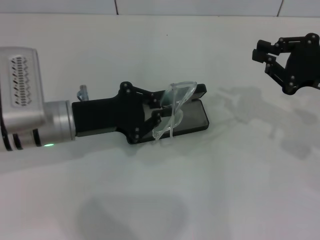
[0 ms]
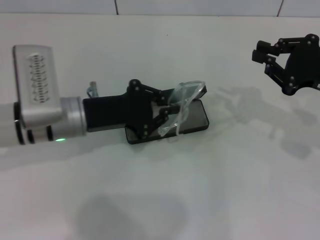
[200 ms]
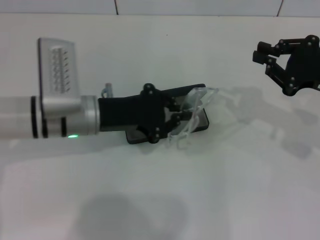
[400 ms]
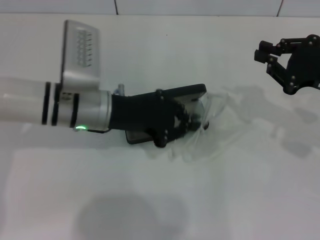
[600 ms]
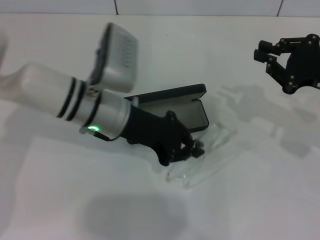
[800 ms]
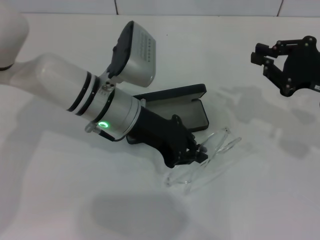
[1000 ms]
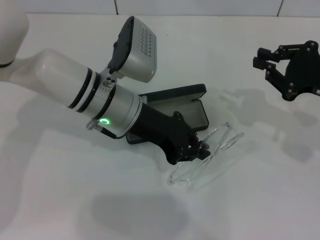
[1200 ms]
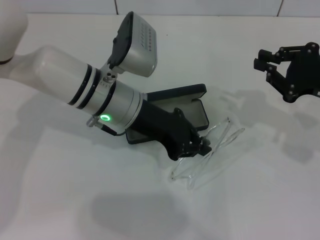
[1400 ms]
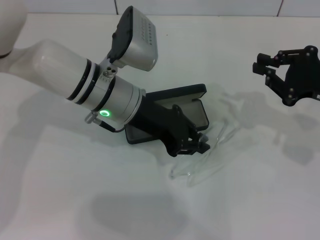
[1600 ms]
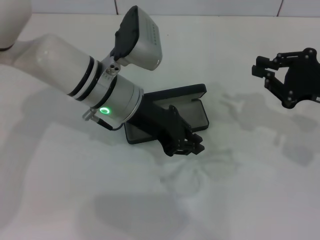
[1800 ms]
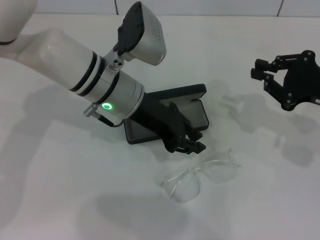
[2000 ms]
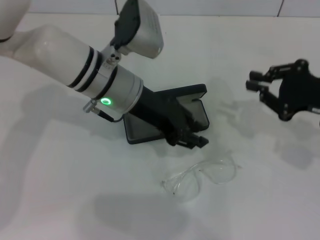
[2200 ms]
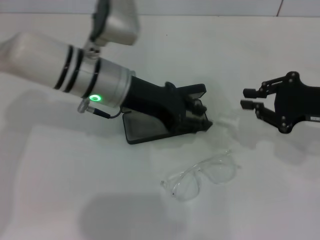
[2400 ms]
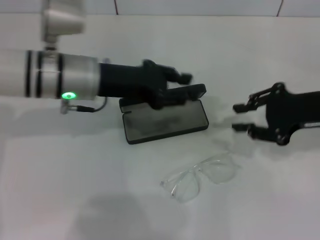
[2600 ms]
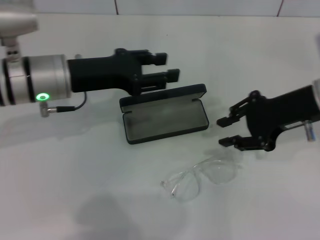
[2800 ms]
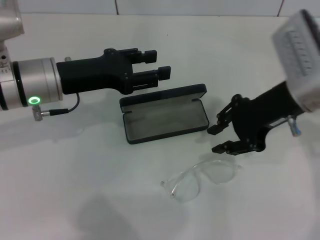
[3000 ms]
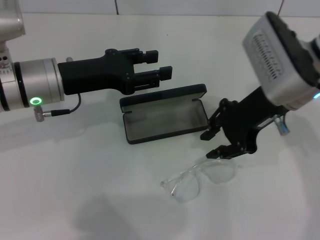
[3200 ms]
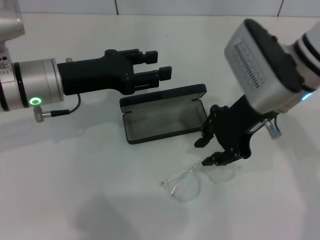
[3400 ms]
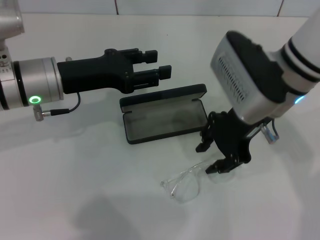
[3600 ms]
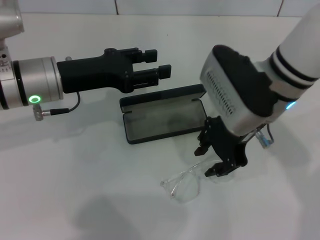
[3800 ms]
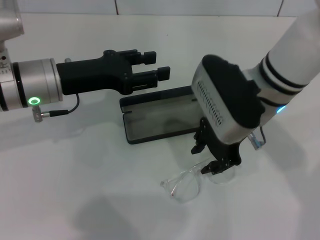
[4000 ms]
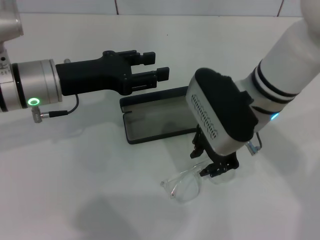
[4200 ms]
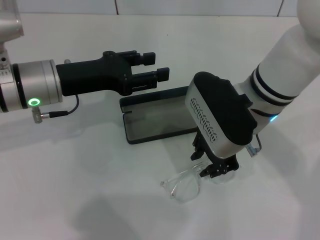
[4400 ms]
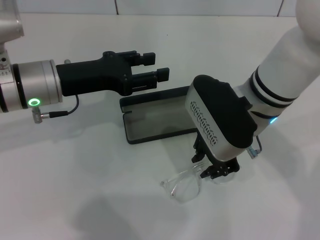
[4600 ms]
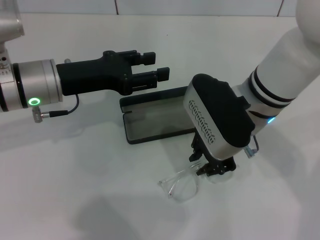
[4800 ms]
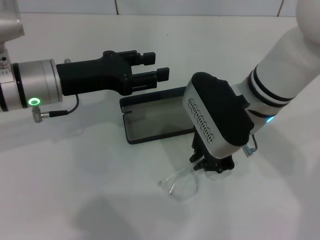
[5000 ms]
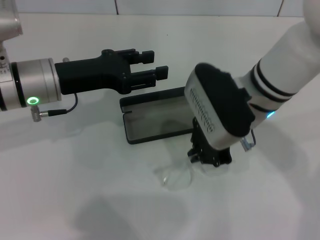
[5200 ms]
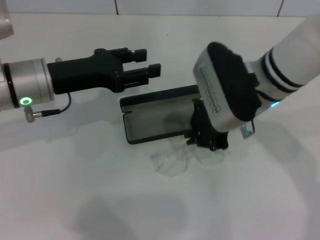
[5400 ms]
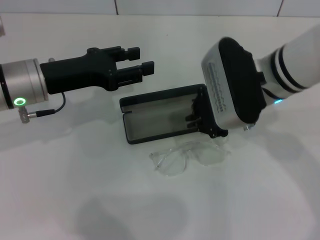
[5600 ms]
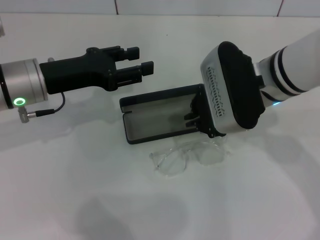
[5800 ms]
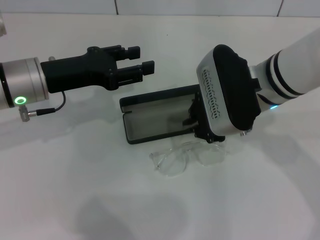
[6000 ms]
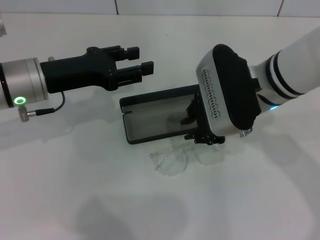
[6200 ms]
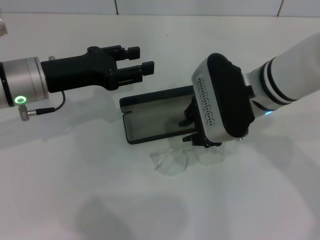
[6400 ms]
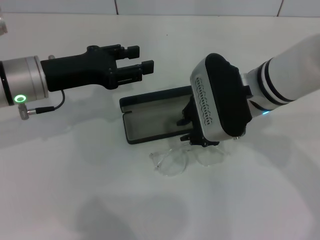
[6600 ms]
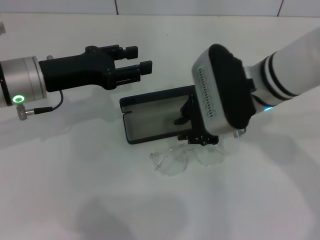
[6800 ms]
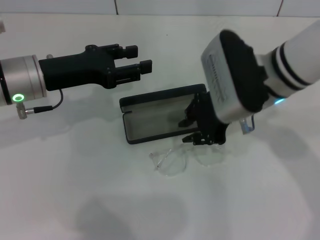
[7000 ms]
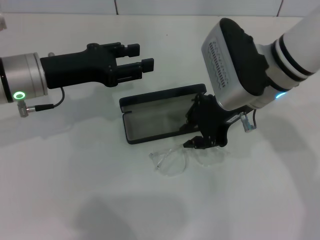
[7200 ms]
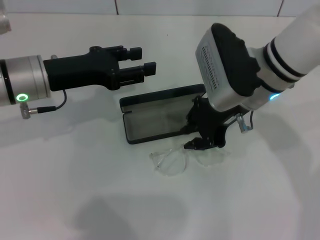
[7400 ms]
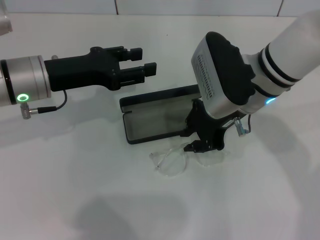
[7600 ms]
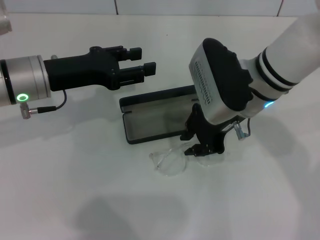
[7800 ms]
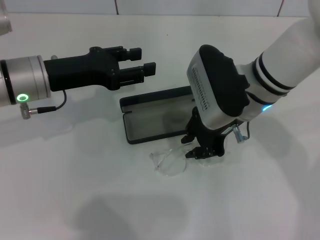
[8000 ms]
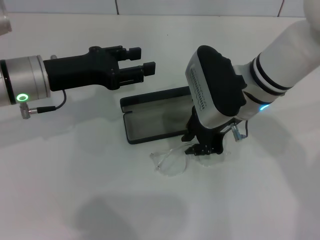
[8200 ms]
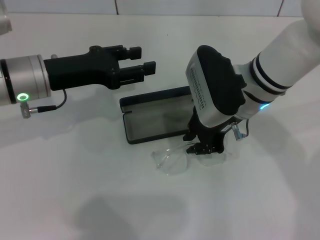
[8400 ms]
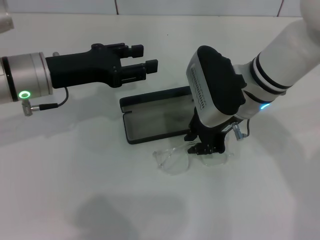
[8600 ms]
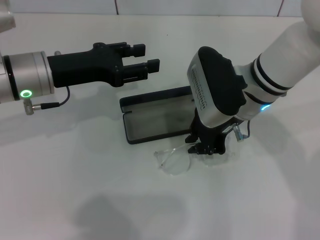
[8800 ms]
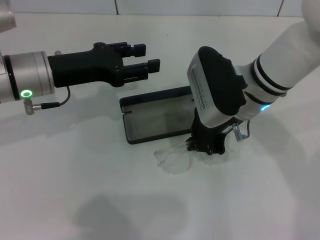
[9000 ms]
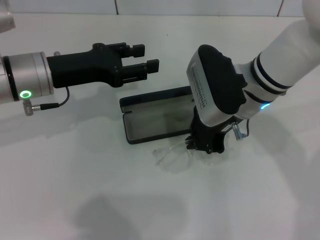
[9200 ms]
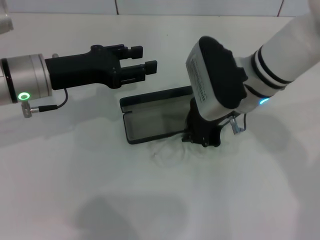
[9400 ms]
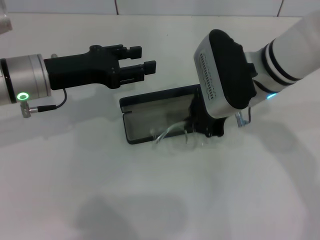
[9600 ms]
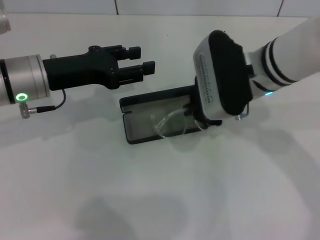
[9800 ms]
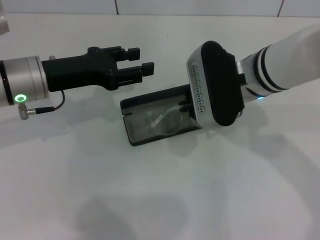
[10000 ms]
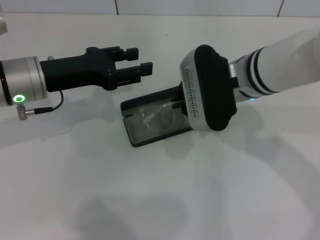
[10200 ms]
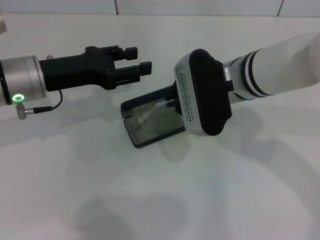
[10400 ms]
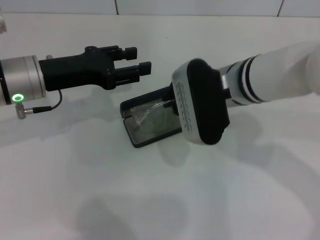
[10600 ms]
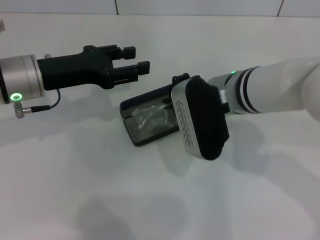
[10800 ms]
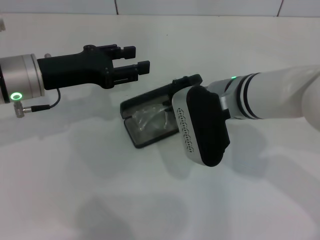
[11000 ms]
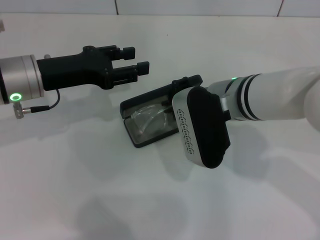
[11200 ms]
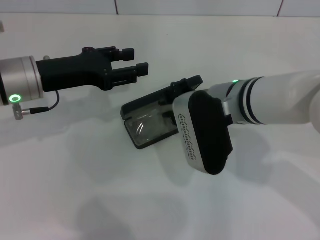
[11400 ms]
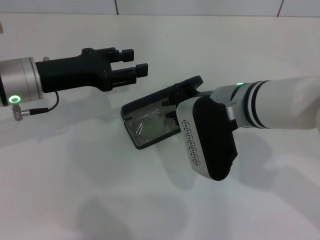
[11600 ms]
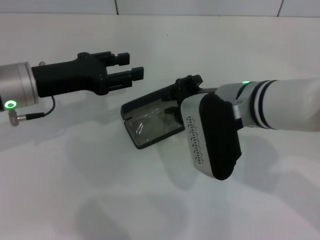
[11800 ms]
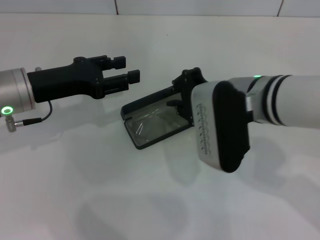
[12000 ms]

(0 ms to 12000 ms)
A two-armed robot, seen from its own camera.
Step, 0 ms - 9000 ms: Grab the eyeglass frame with your right hand.
Step, 9200 ms - 11400 ms: Put the glasses into the case with your right hand.
0 ms - 1600 ms: The left gripper heads to the right, covering some 10 cm.
1600 ms - 3000 ms: The right gripper travels to the left and upward by roughly 10 cm; the left gripper heads to the left, covering about 10 cm, and opens its fingers.
3000 ms - 4400 ms: The right gripper heads to the left, covering about 10 cm.
4400 ms - 6000 ms: The right gripper closes its fingers.
6000 ms - 9000 ms: The grippers stay close to where they were, moving slightly.

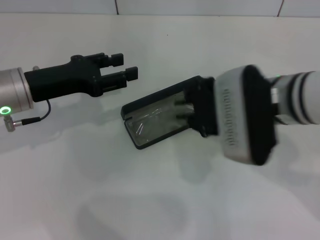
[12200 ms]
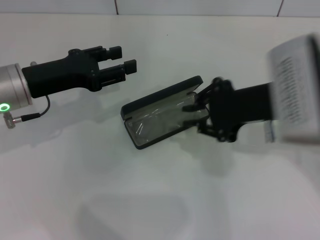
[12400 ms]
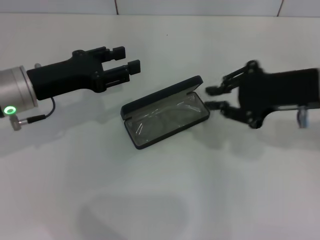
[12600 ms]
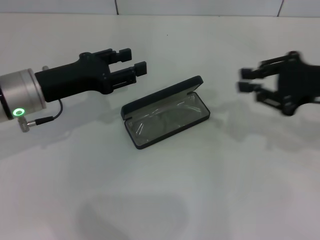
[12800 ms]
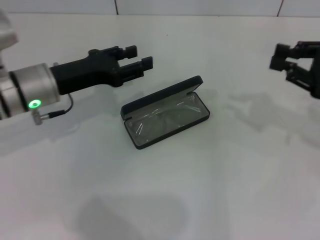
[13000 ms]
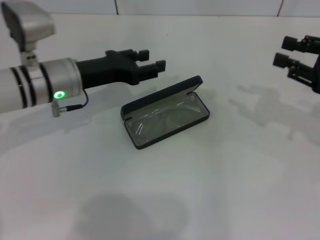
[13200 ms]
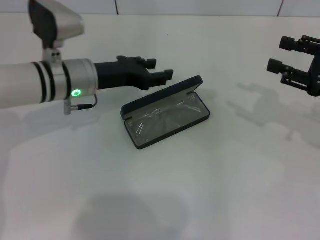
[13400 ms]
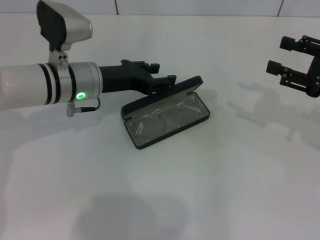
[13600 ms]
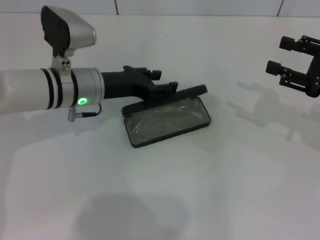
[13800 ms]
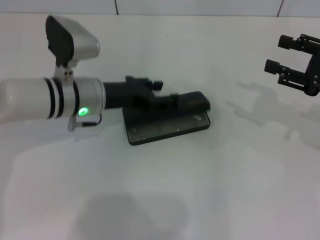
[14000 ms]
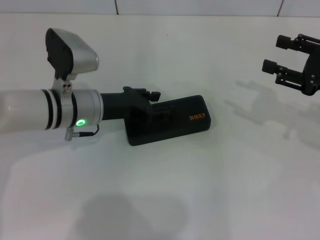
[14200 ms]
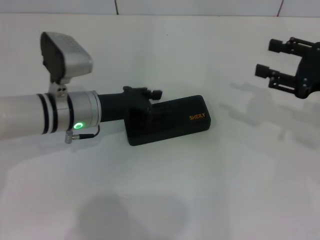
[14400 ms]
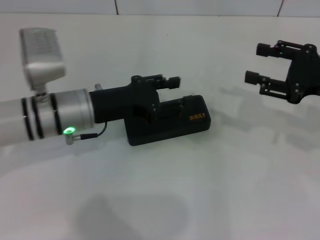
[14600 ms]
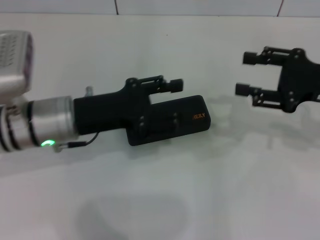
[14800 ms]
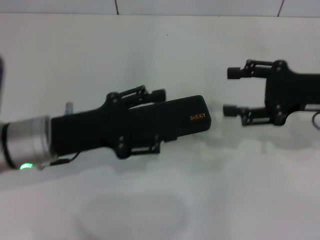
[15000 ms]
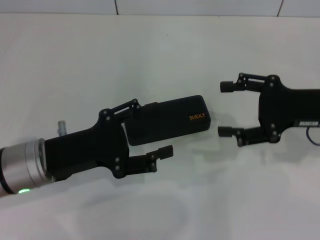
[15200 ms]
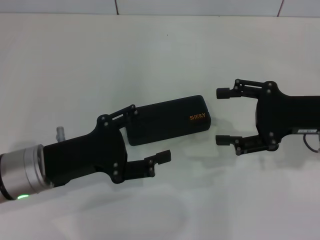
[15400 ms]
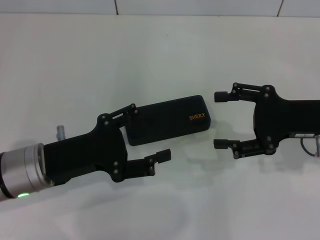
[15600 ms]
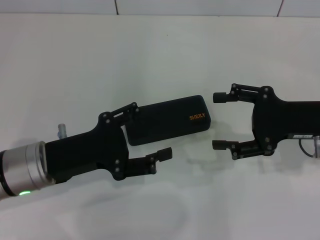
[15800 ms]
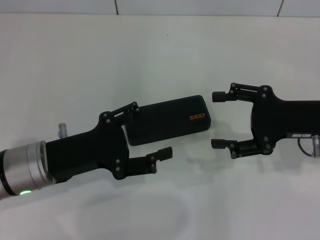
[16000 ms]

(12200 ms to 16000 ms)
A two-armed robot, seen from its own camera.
Step, 12200 ms - 14000 ms: Close the glasses case with your left hand.
12200 ms - 13400 ms: The right gripper travels to the right by roughly 20 cm, while the left gripper goes some 10 cm to the right and forward.
13400 ms - 14800 ms: The left gripper heads backward, covering some 10 cm.
14800 ms - 16000 ms: The left gripper heads backward, covering about 5 cm.

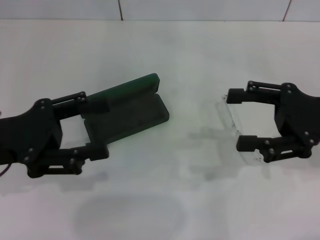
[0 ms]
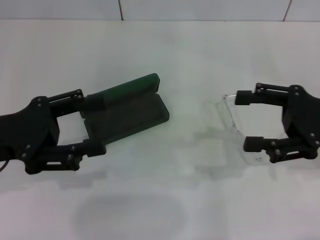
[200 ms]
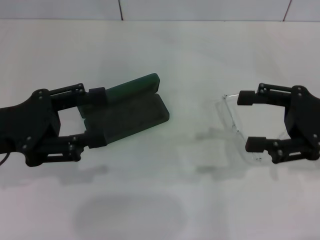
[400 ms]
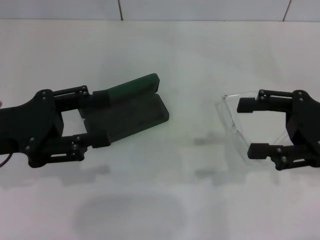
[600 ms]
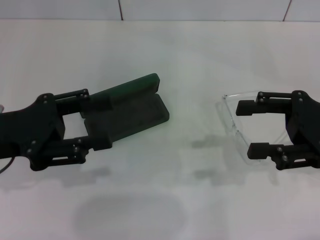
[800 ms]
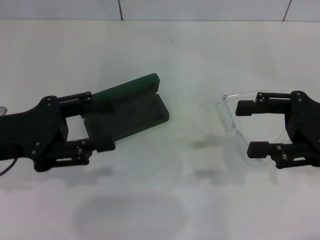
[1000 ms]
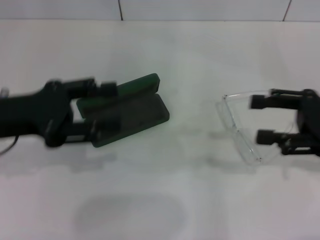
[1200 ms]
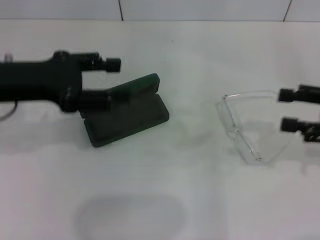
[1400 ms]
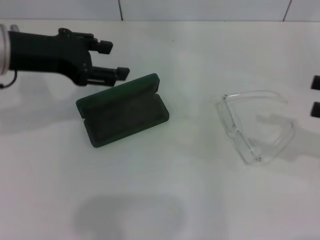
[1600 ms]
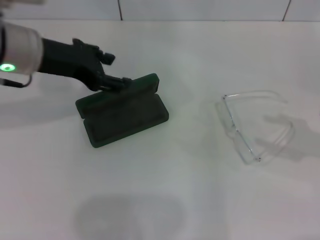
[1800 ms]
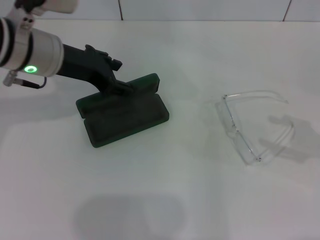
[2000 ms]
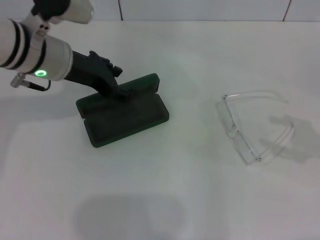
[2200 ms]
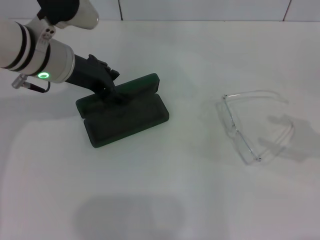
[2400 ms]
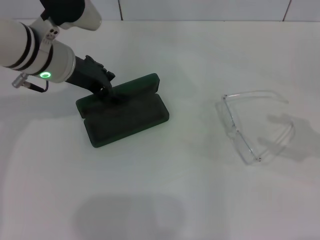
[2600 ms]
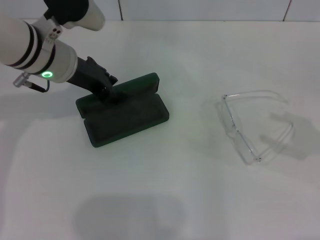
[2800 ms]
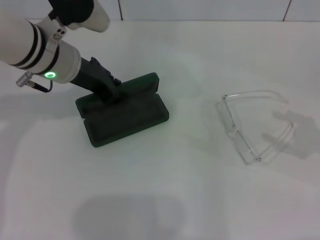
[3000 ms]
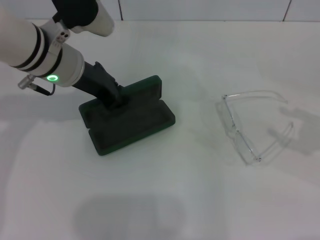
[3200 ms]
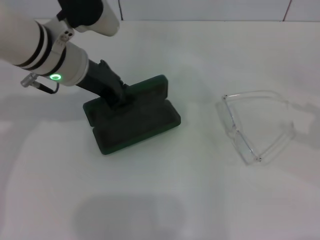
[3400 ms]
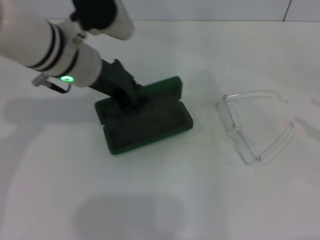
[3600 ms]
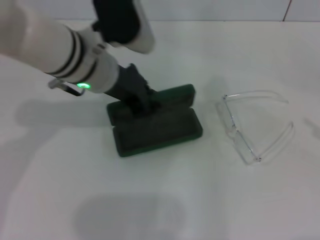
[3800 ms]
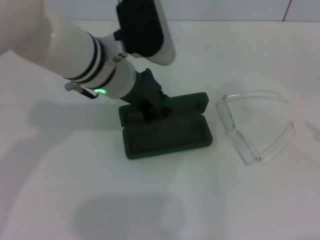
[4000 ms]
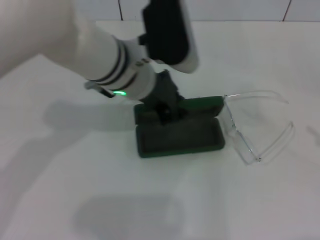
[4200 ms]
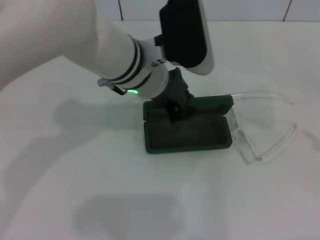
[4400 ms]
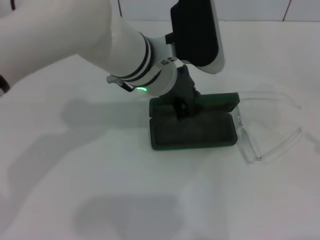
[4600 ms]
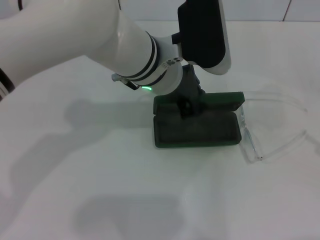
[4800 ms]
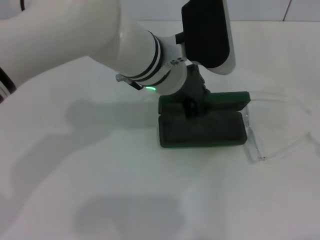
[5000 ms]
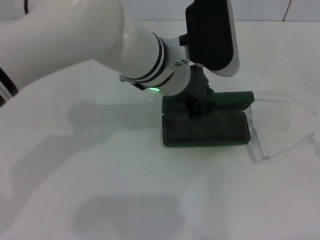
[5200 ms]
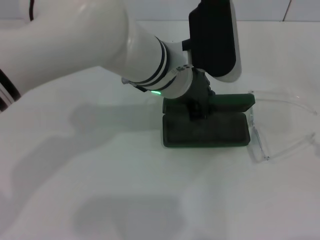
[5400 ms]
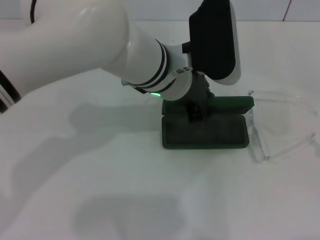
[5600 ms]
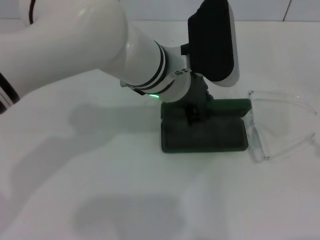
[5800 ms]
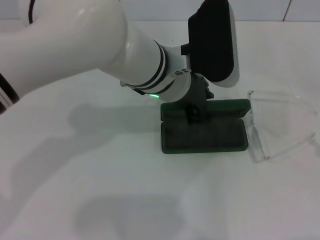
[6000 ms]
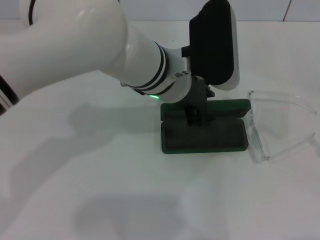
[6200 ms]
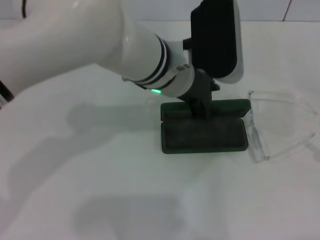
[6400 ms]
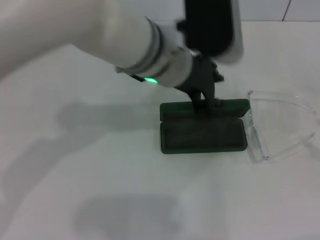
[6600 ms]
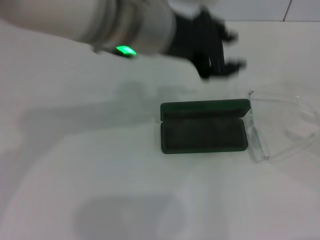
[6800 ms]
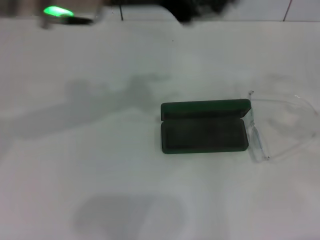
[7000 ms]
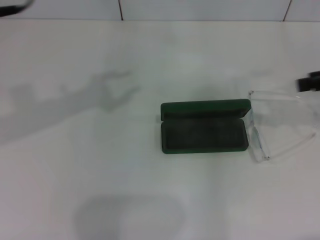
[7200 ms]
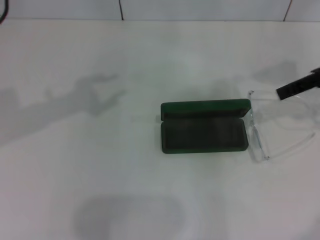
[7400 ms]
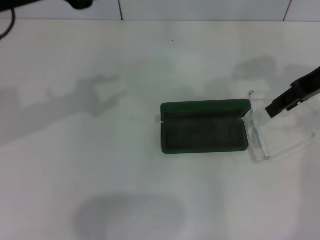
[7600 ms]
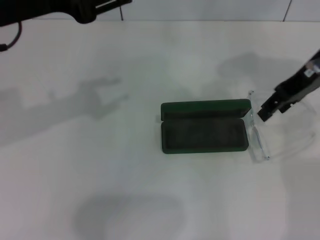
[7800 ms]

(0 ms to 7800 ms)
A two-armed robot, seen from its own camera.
Step, 0 ms - 3200 ms: Grab the glasses case with your left hand.
Step, 3400 ms - 5800 ms: Place the glasses case in the center of the table with your left hand.
0 ms - 1600 ms: The left gripper travels forward and upward by about 10 cm, while the right gripper is displaced to the right by about 10 cm.
1600 ms - 3200 ms: The left gripper moves to the right, downward and forward, approximately 10 cm, and closes up.
3200 ms - 4600 ms: The right gripper is displaced backward by roughly 5 cm. Meanwhile the left gripper heads to the right, covering about 15 cm.
4600 ms - 6200 ms: The grippers make only small movements.
6200 ms - 7800 ms: The left gripper travels to the left and upward by approximately 25 cm. Meanwhile the right gripper travels to the left, forward and upward by roughly 30 cm.
